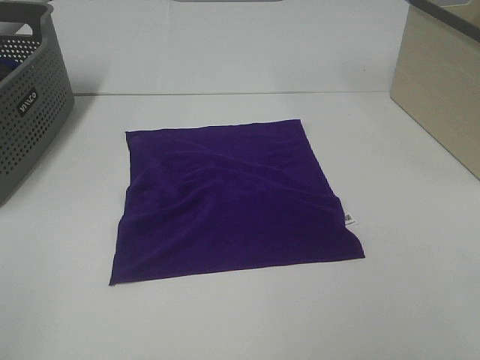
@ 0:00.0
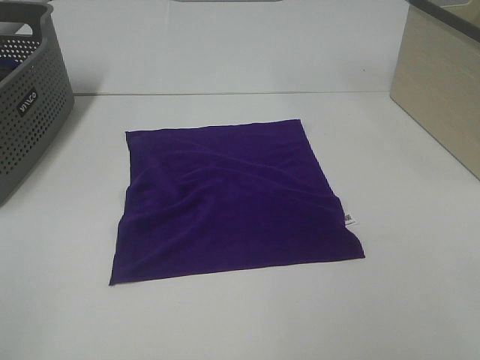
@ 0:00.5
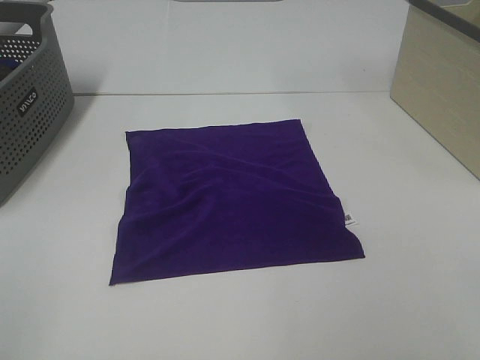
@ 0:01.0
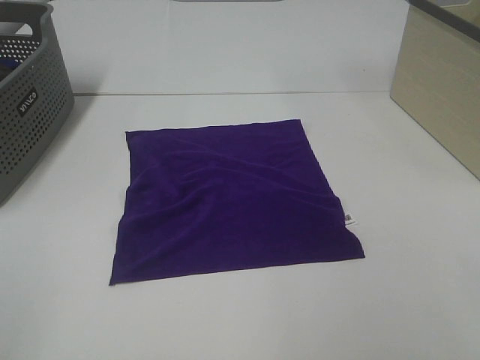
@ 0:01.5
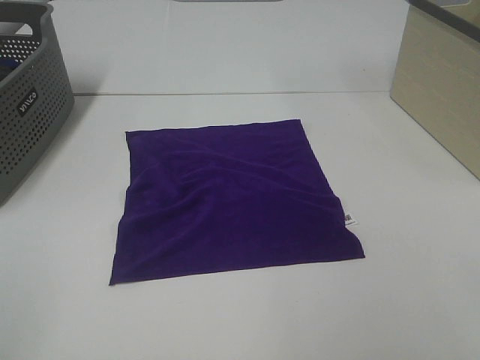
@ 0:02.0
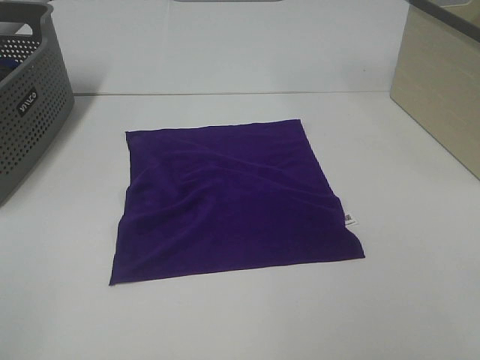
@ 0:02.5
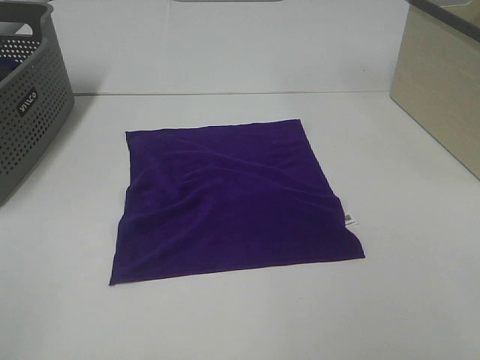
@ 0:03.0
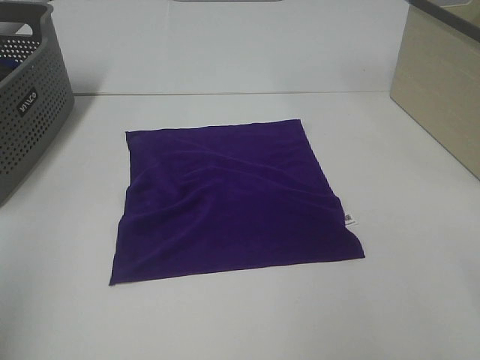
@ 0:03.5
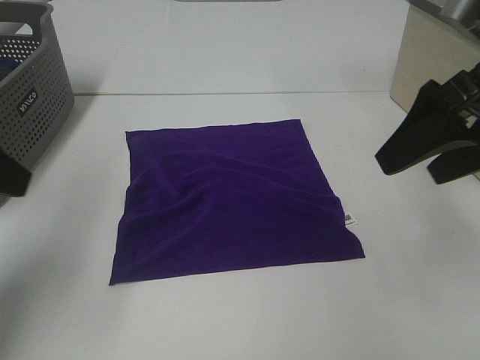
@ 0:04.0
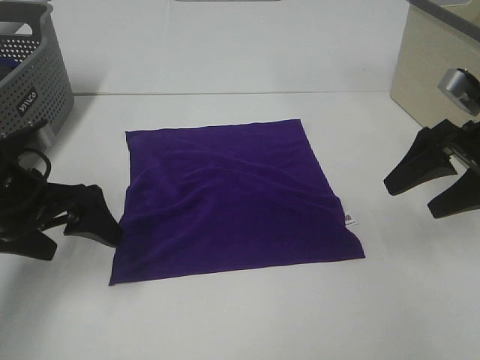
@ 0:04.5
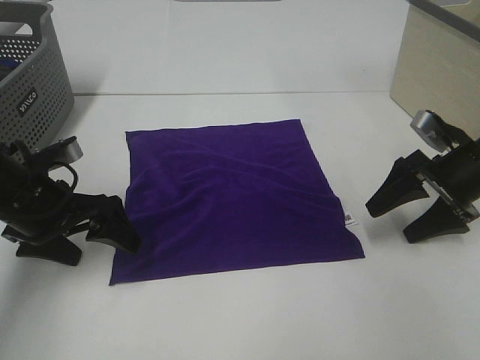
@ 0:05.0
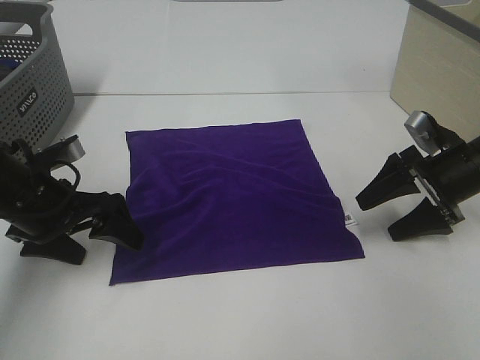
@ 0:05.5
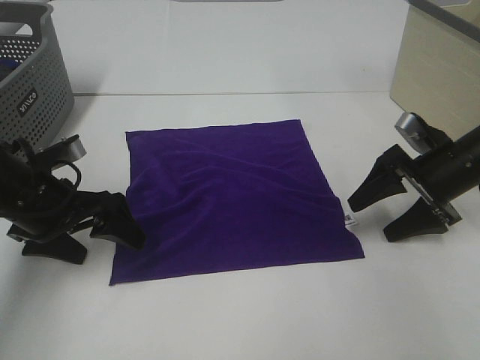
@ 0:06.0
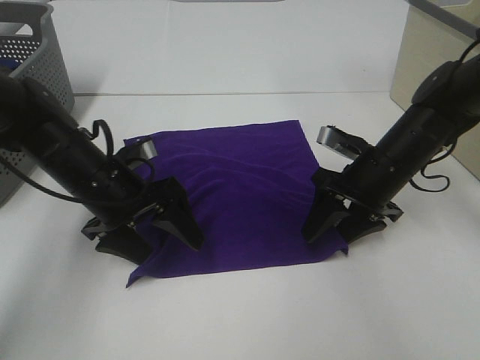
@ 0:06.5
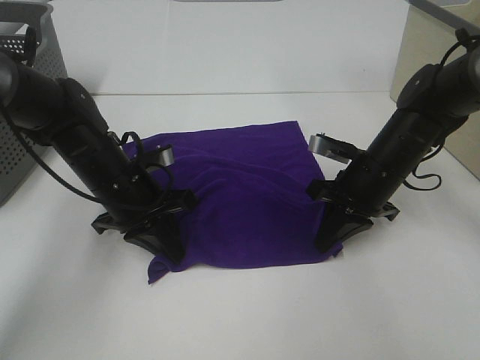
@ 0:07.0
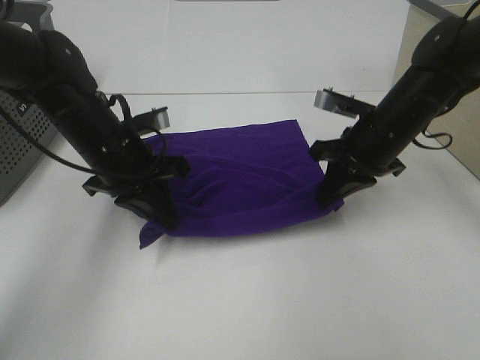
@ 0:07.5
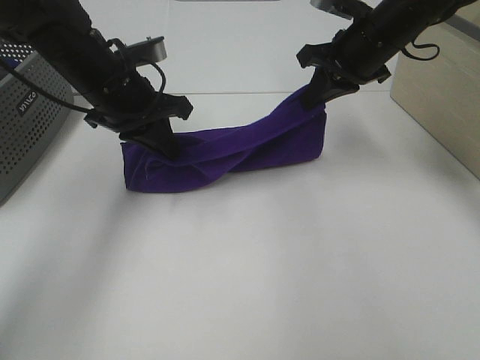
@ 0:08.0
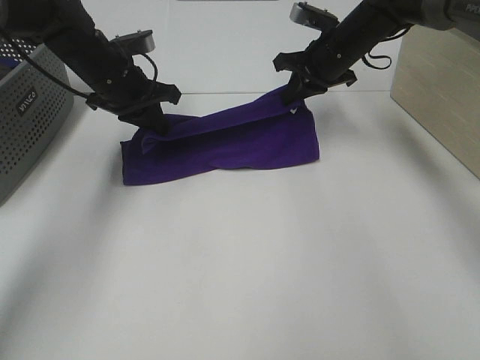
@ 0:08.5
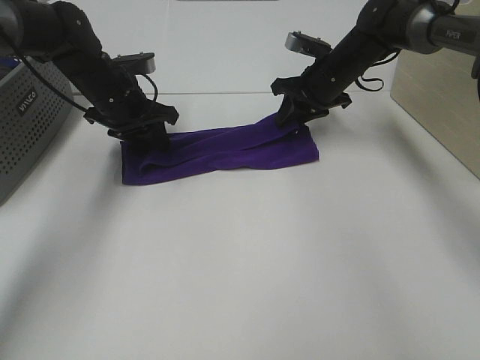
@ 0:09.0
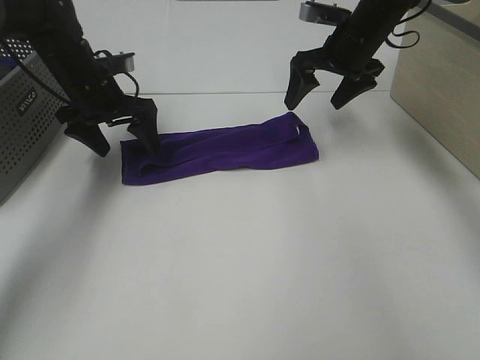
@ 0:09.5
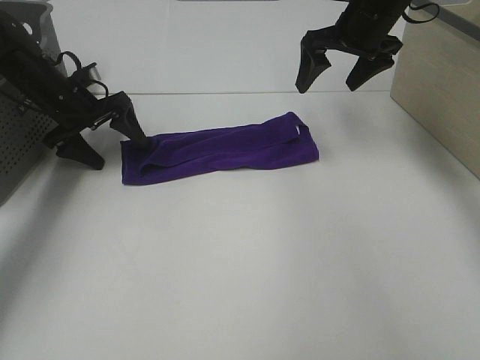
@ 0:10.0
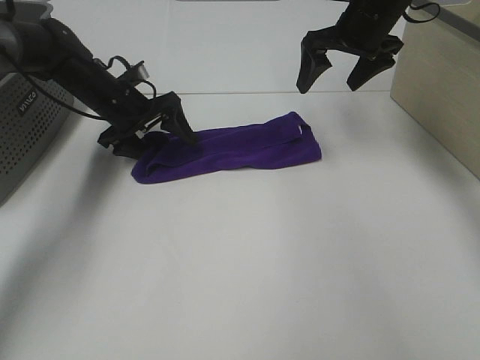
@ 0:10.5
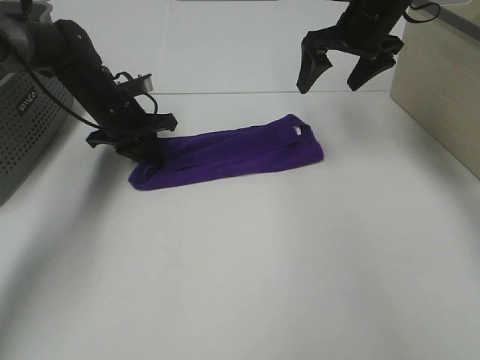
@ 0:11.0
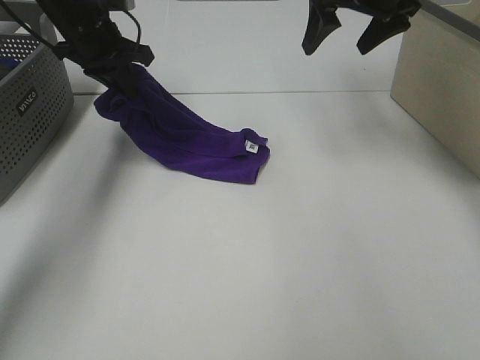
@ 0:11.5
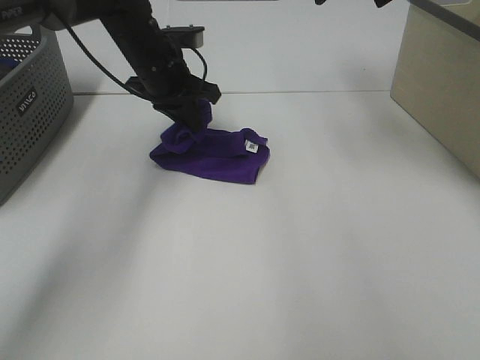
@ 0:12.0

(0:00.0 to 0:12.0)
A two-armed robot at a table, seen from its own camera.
Task of the whole recording: Fold towels.
Step, 0:00.0 - 0:07.0: Left hand: grab the bottom left corner of purple towel.
Step, 0:00.0 - 0:07.0: Right hand: grab the bottom right corner of purple towel.
Step, 0:07.5 - 0:08.5: Left hand: fold the purple towel up.
Step, 0:07.5 - 0:08.5: Right hand: fold the purple towel up.
0:00.0 - 0:02.0: The two grippers keep their place.
0:02.0 - 0:04.0: Both grippers move forward, roughly 25 cm.
0:04.0 - 0:06.0: Both grippers travel together downward and forward, some 20 cm.
0:06.0 - 0:08.0: The left gripper moves forward, upward and to the right, approximately 15 cm, and closes up; the right gripper moves upward, to the left and forward, about 20 cm, and closes its fingers.
0:08.0 - 0:10.0: The right gripper shifts approximately 5 cm forward, travels downward and back again, about 10 cm each way, and opens up; the left gripper travels to the left, forward and downward by approximately 15 cm, and opens its fingers.
0:10.0 - 0:12.0: The left gripper heads to the right, covering some 15 cm, and closes up; the right gripper goes approximately 10 cm upward.

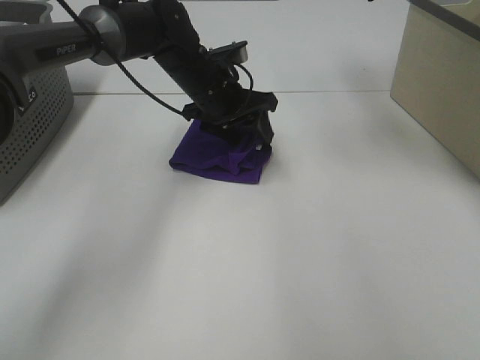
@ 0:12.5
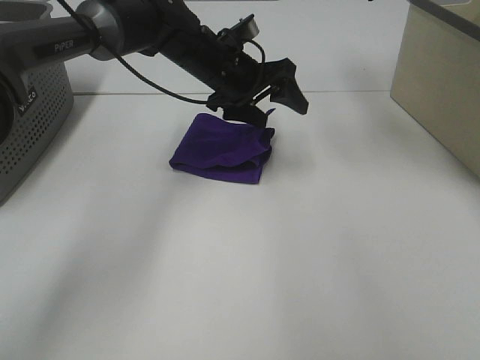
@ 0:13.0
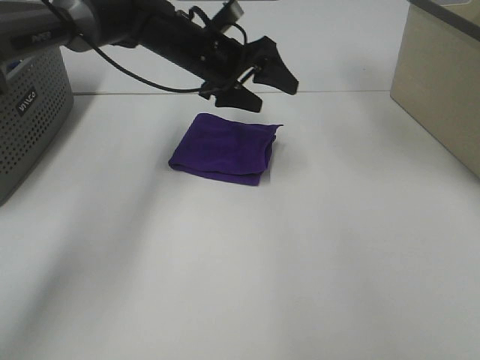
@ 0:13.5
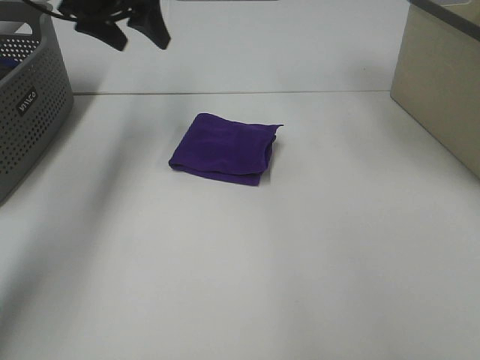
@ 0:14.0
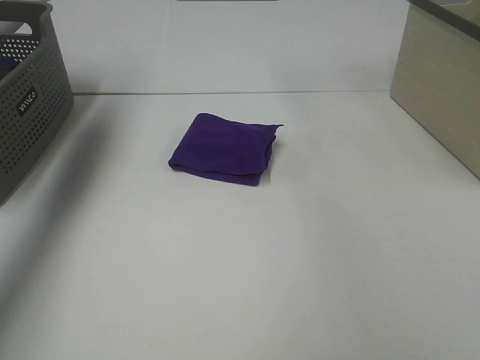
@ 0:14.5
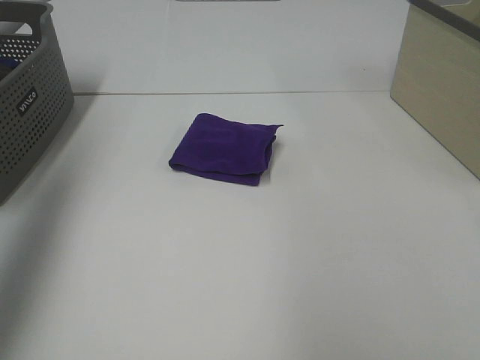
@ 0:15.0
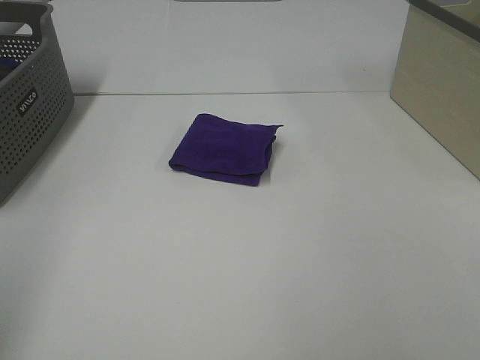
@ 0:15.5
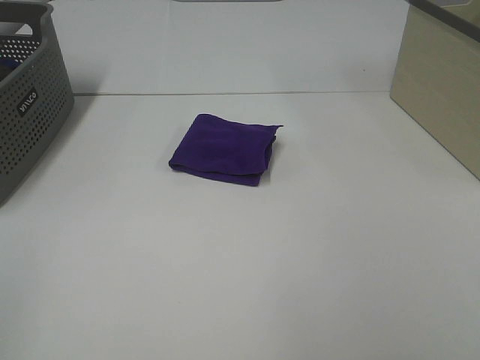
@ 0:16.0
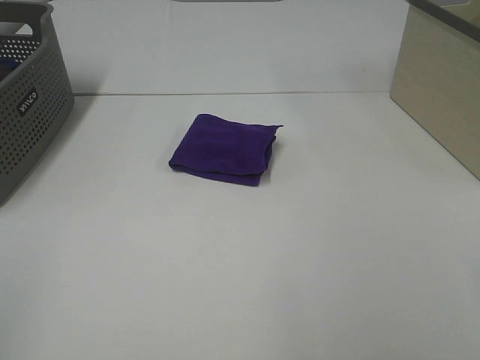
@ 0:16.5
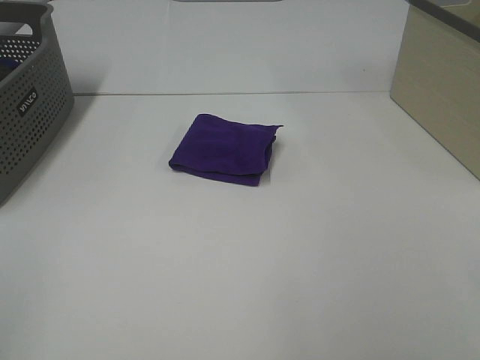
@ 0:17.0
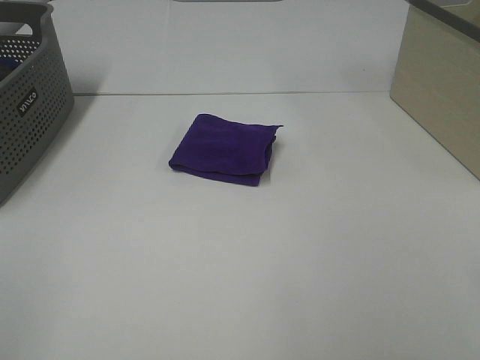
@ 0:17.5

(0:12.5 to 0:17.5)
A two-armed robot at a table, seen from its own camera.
Task of the whole recording: Fold towels.
0:12.5 - 0:15.0: The right gripper goes some 30 cm backward and to the right. The left gripper heads to the left, upward and backward, covering some 50 cm.
0:15.0 - 0:17.5: The left gripper is displaced backward and downward by approximately 30 cm.
